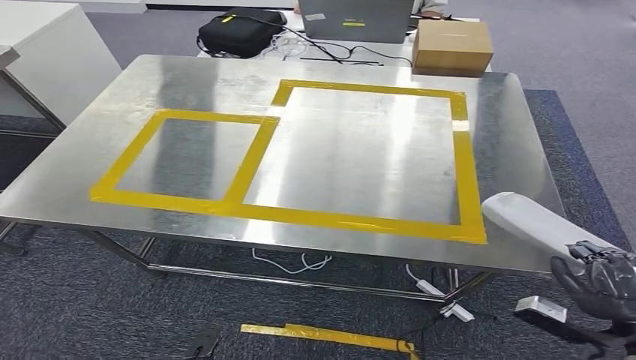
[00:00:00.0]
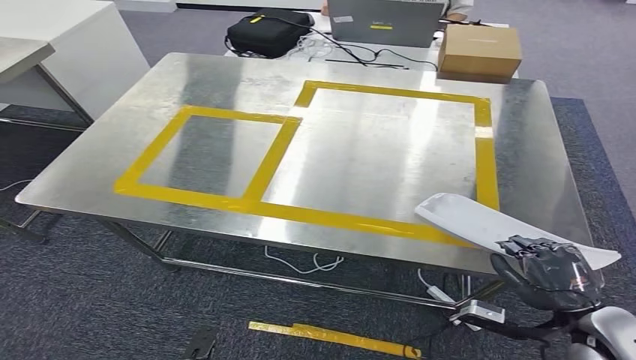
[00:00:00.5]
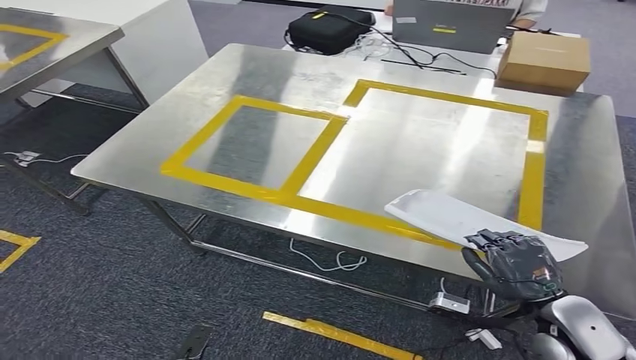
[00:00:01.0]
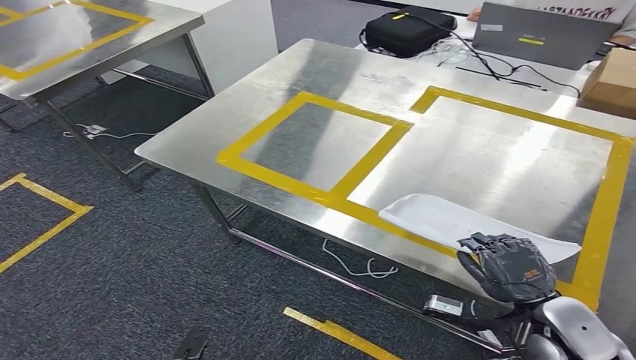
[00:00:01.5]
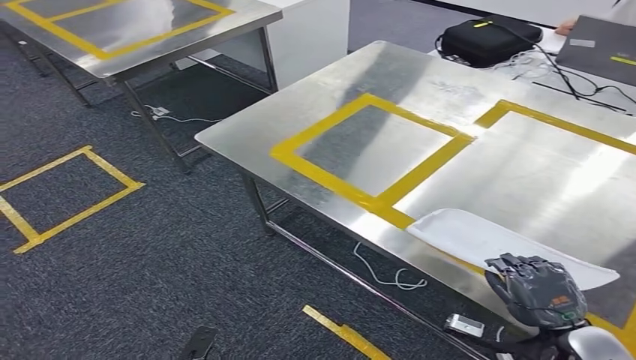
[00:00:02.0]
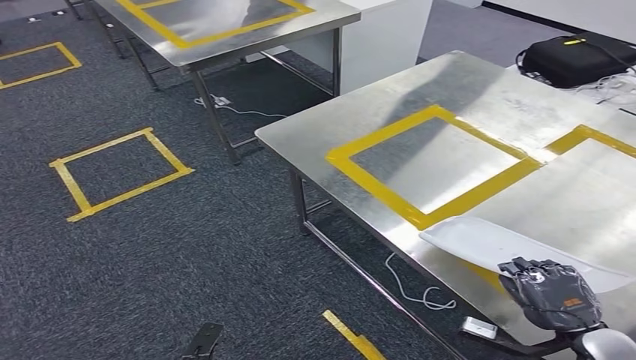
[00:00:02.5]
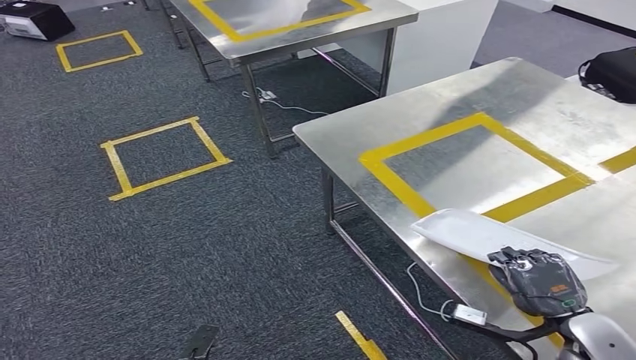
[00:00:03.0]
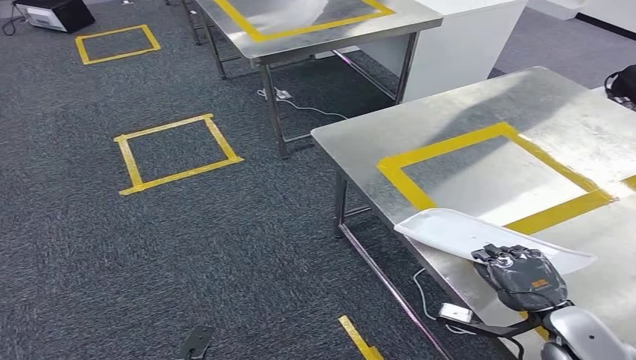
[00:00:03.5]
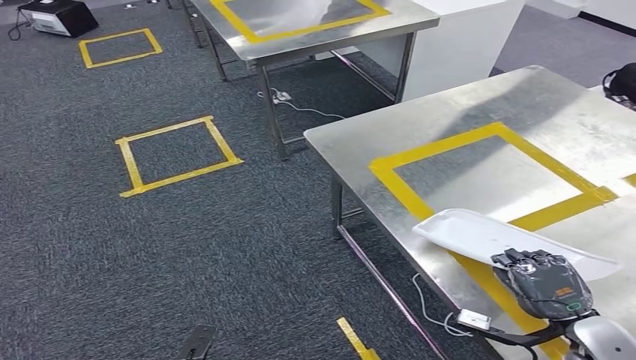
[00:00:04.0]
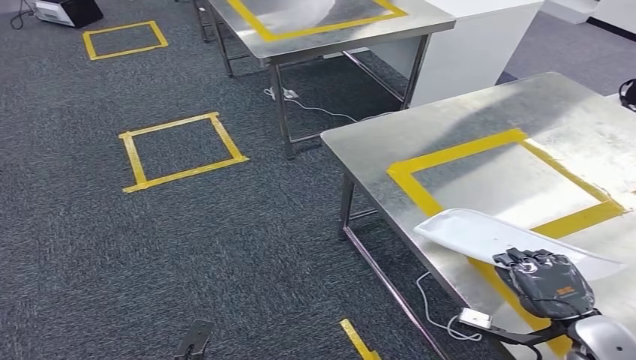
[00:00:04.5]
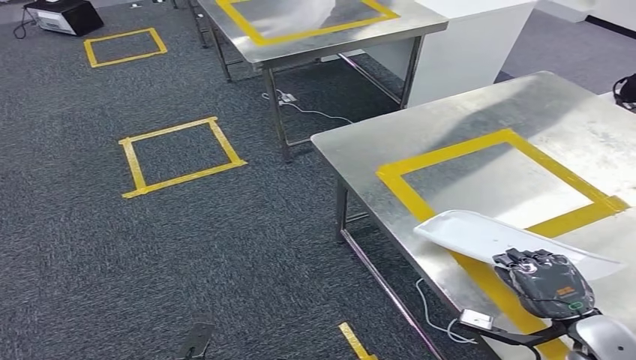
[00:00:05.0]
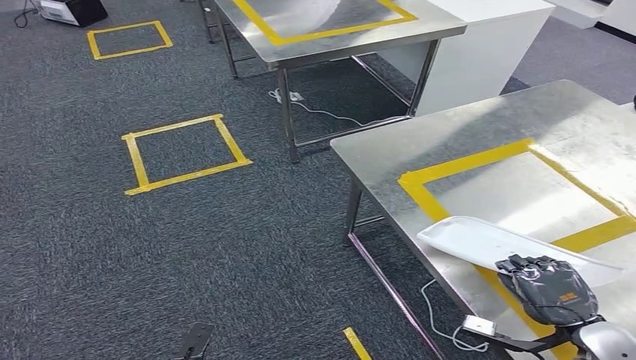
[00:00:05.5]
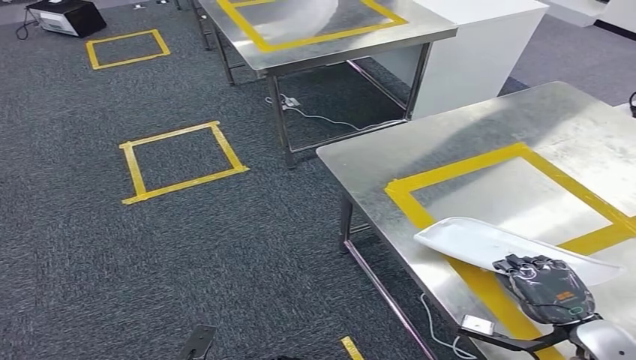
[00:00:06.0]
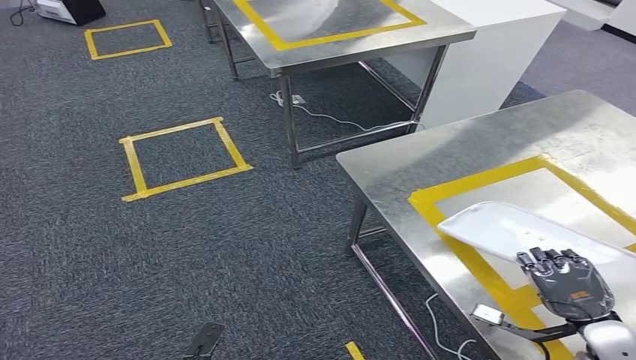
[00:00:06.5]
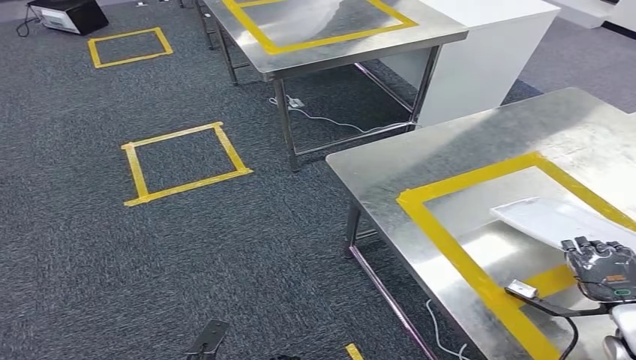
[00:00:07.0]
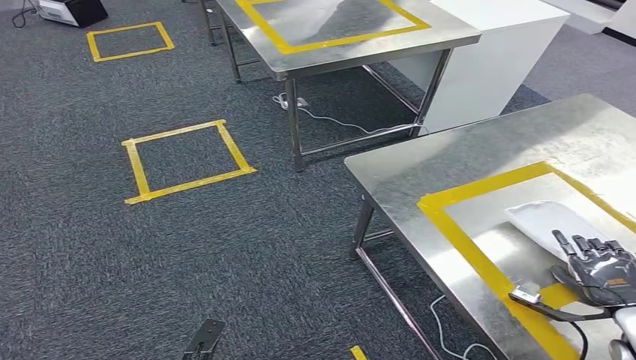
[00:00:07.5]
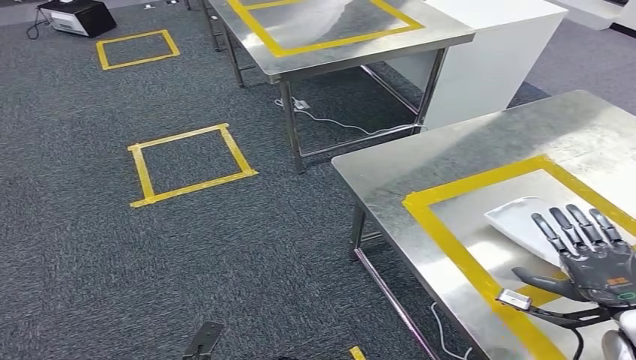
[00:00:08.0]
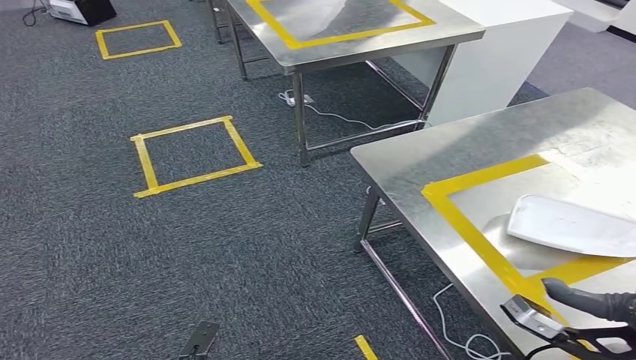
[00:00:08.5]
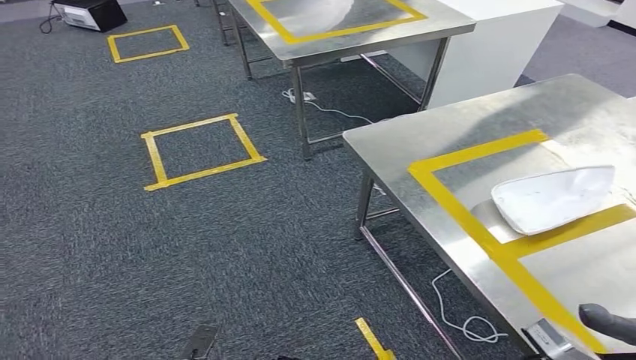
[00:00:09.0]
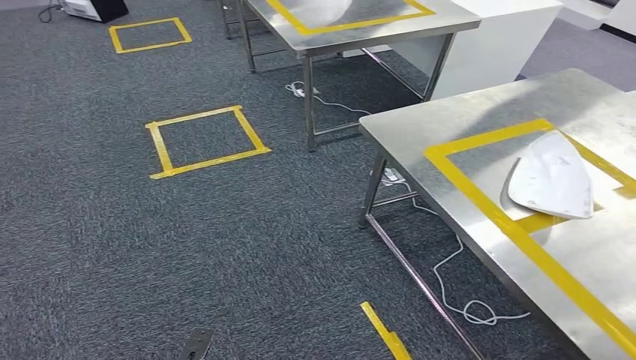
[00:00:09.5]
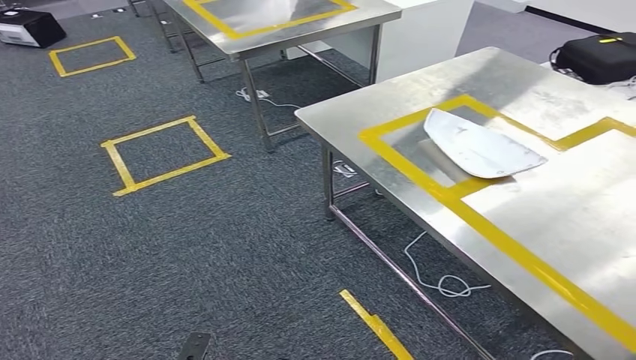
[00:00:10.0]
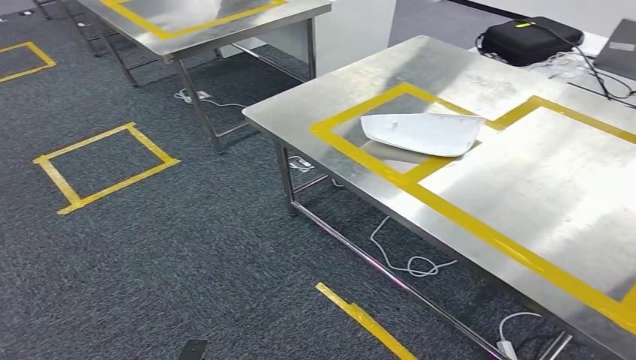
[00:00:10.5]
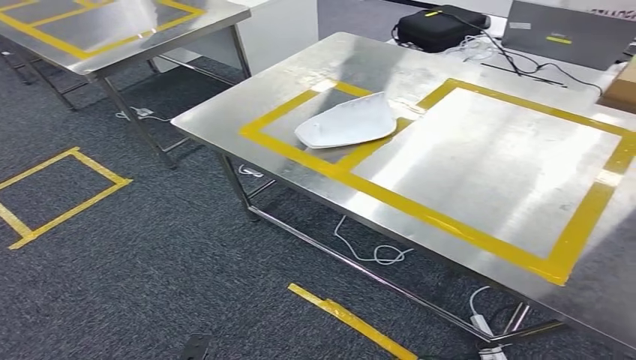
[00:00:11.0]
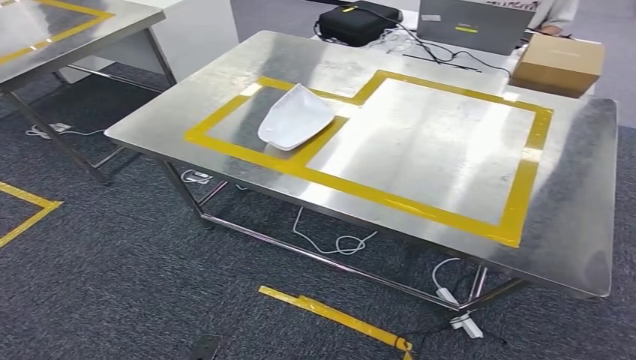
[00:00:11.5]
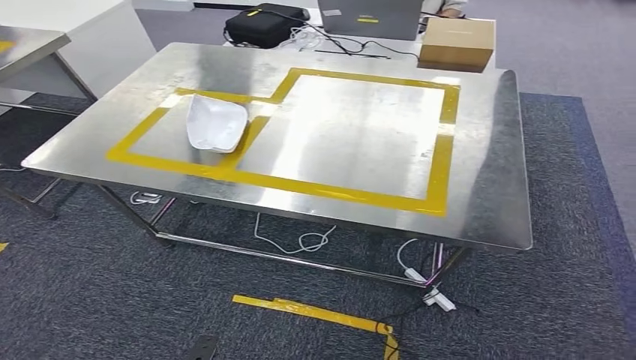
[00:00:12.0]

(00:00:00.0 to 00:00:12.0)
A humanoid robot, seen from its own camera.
Step, 00:00:00.0 - 00:00:09.0: Insert the small parts into the corresponding holes on the workbench.

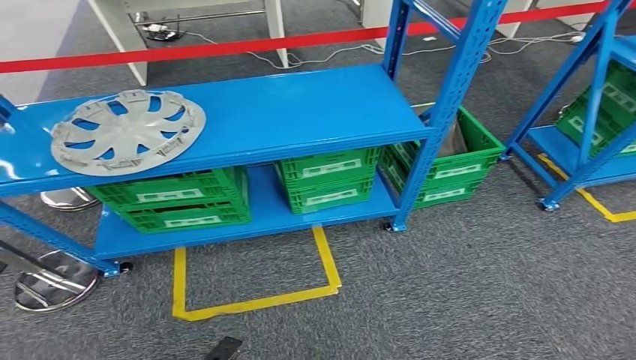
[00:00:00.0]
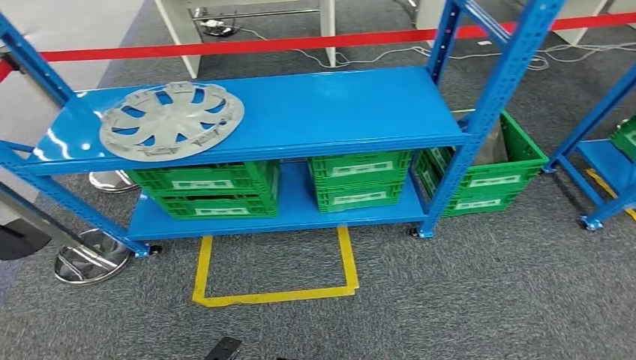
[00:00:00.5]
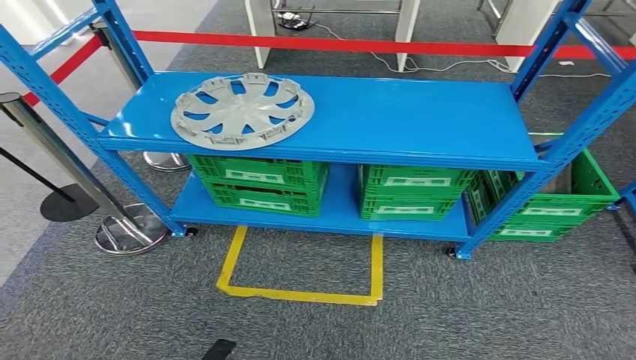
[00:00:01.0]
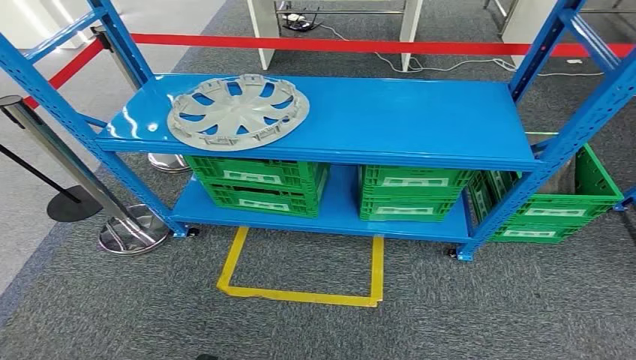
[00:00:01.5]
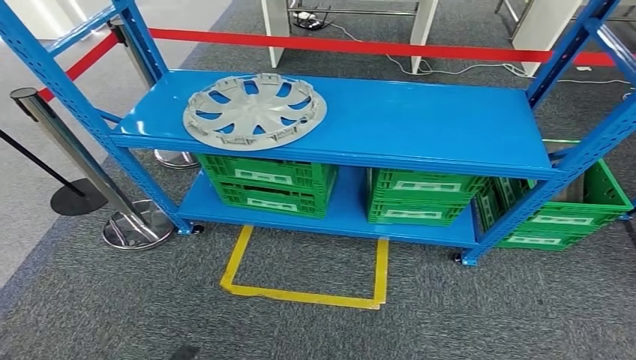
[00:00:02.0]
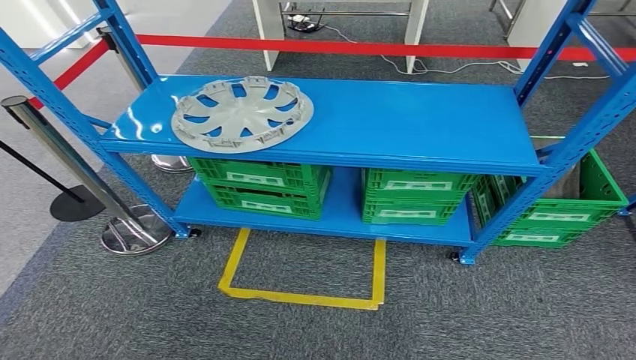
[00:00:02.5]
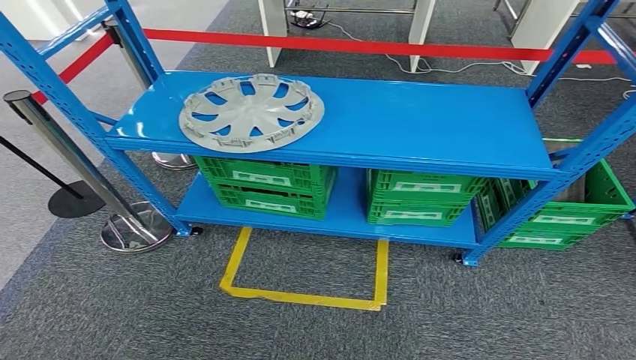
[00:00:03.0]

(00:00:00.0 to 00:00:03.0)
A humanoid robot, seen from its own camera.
Step, 00:00:00.0 - 00:00:03.0: Move to the initial position at the workbench.
